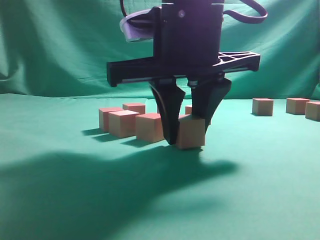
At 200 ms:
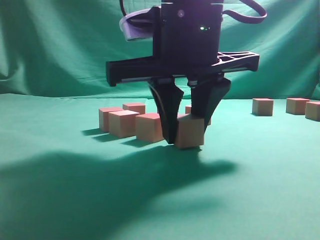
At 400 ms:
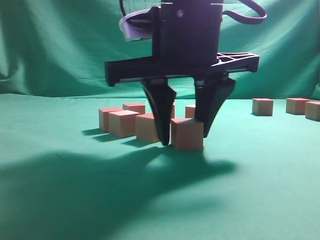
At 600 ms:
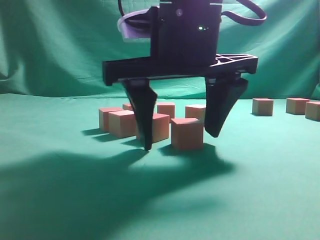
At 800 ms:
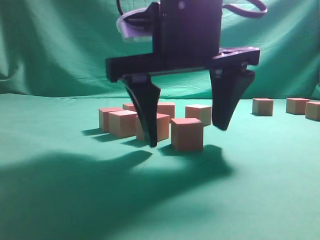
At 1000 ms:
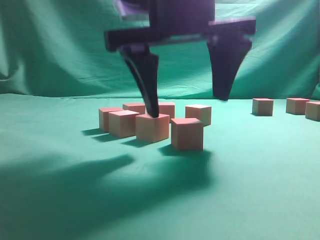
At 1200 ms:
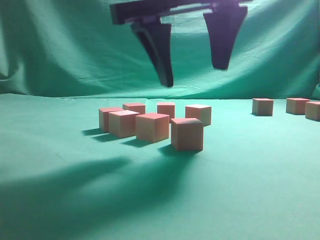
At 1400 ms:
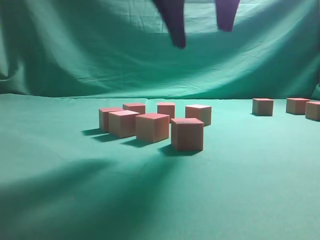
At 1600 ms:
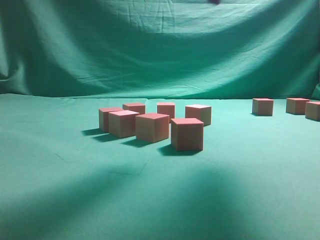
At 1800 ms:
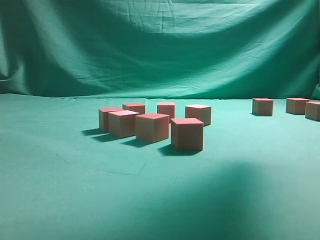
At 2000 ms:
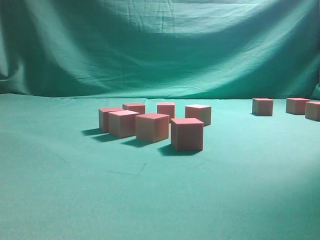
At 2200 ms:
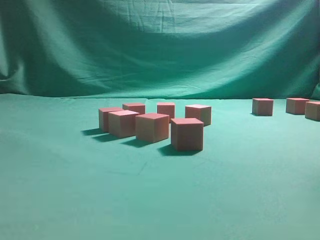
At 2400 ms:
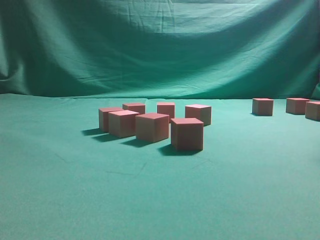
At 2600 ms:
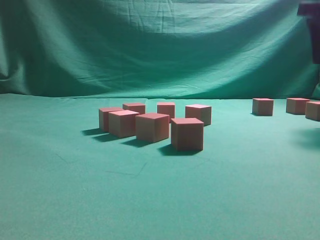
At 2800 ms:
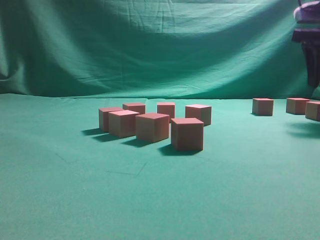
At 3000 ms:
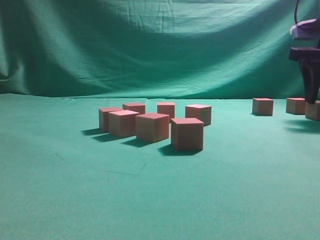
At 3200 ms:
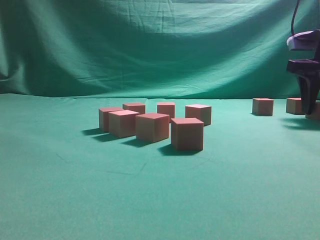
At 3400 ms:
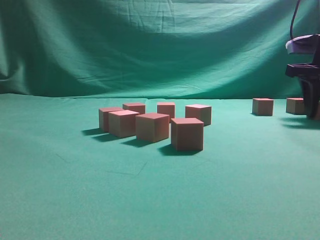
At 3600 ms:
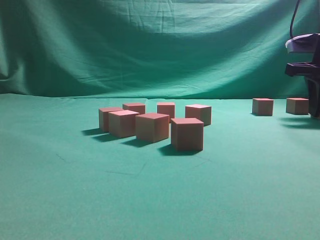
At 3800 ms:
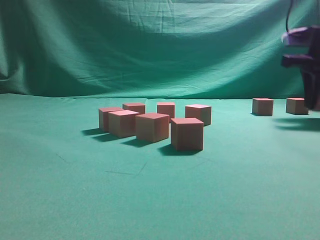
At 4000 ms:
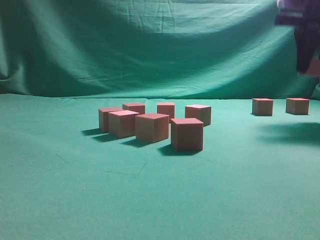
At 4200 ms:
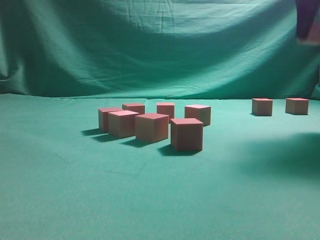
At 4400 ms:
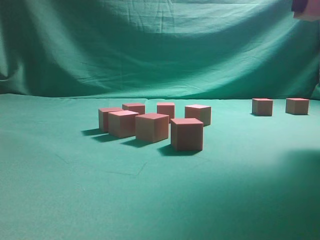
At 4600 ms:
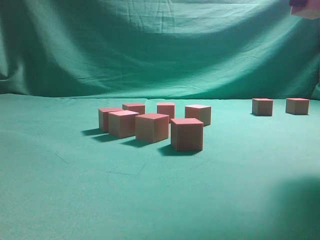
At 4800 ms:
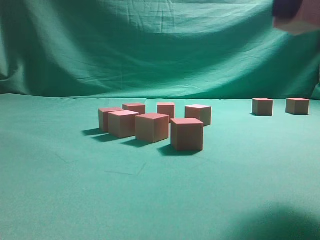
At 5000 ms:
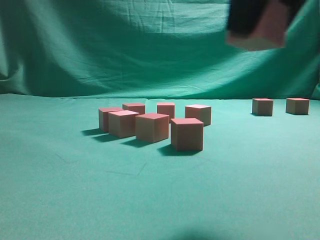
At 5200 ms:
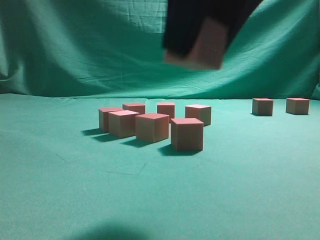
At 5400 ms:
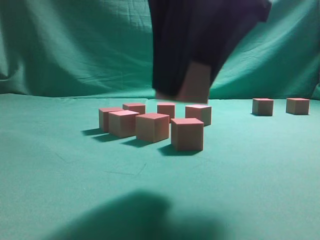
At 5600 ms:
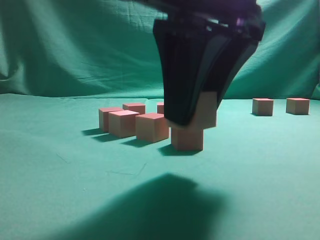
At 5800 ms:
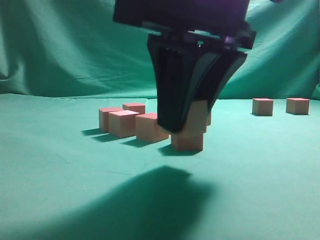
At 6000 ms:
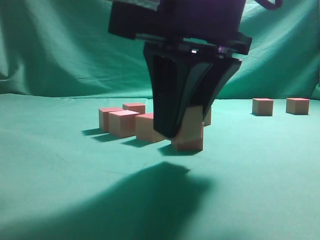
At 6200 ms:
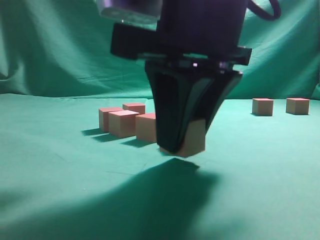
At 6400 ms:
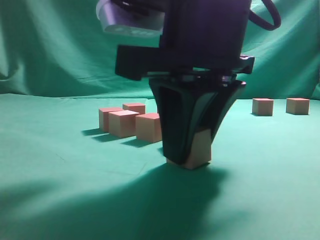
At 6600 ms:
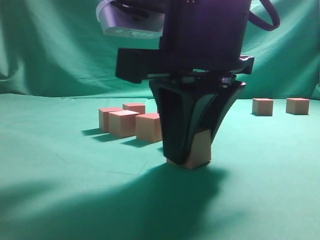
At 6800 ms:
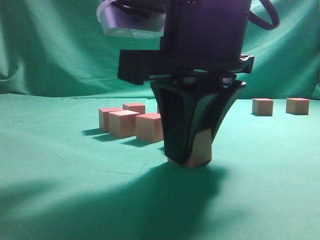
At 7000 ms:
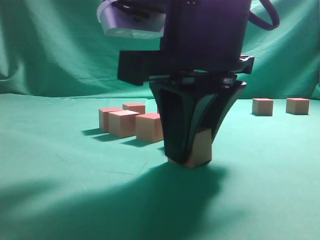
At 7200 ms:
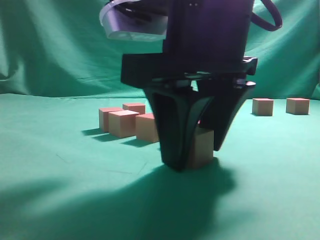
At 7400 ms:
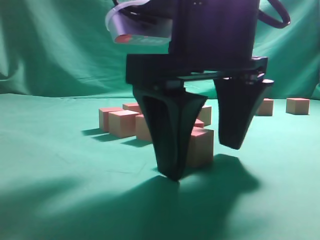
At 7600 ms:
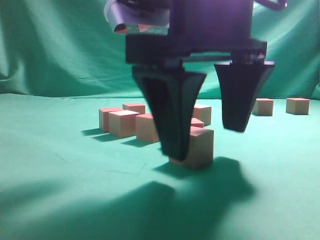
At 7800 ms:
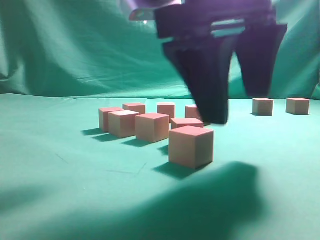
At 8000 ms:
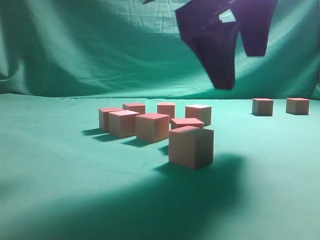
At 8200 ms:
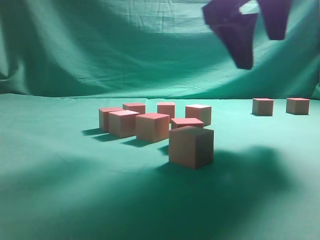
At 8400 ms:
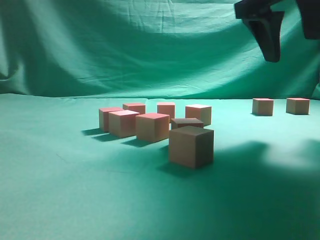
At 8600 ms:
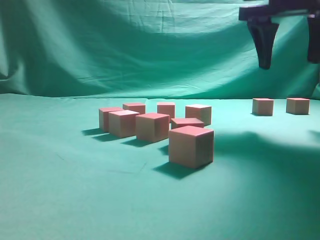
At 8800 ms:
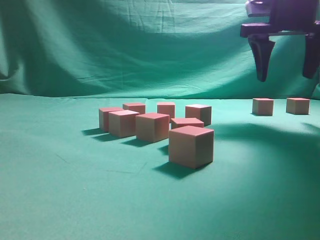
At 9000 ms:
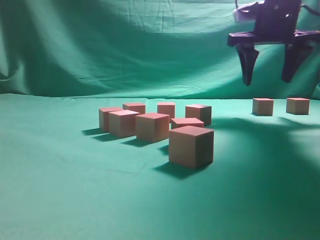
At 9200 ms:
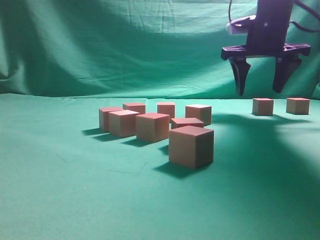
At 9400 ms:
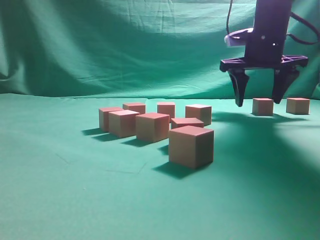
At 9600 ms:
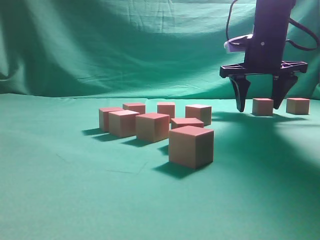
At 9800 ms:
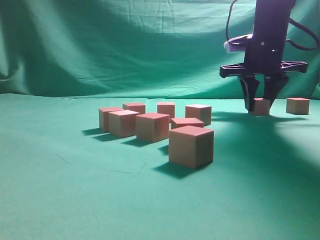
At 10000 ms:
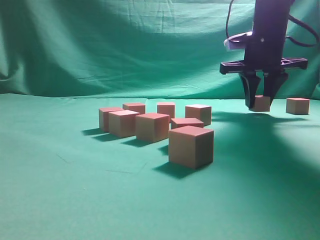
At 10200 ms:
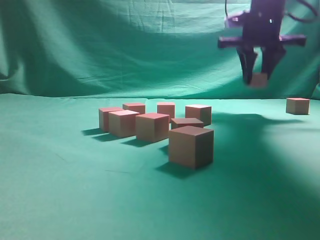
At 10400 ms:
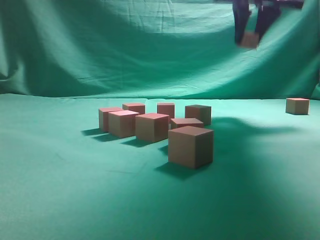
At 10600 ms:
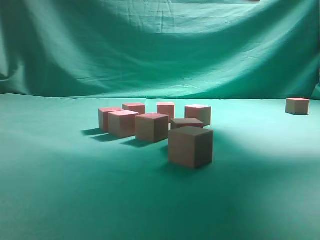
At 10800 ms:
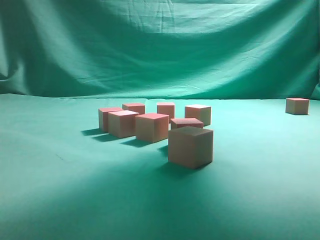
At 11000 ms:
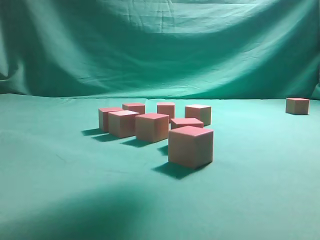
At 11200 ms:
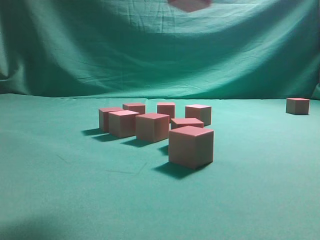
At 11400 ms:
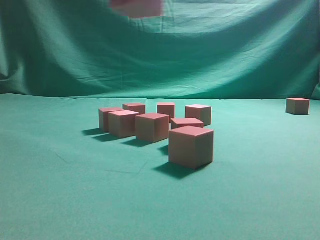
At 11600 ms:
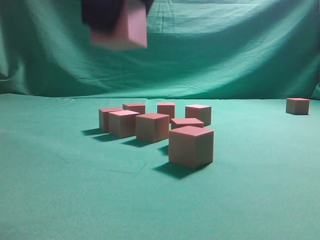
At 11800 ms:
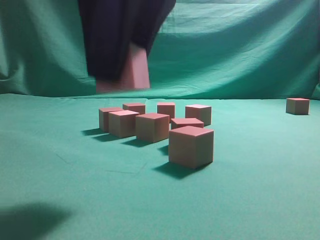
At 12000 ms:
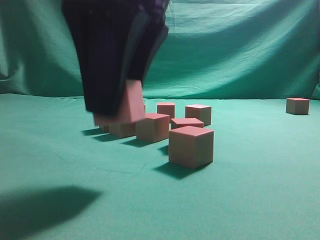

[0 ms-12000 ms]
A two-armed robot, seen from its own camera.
Task of the whole recording: pick up the multiple cubes in two columns one by one and place them in another position on the table.
Step, 1400 ms to 3800 ms: Pick up the block on the table.
Step, 4000 ms to 10000 ms: Place the block at the correct position to assemble the letter S.
0 ms to 1600 ms: The right gripper moves upward, about 15 cm, and opens up.
1600 ms to 3000 ms: The right gripper moves to the right, forward and downward, roughly 30 cm.
3000 ms to 4400 ms: The right gripper travels upward, backward and to the left by roughly 15 cm, and closes its fingers.
4400 ms to 6000 ms: The right gripper shifts some 25 cm to the left, downward and backward.
6000 ms to 7600 ms: The right gripper opens up.
7600 ms to 9000 ms: The right gripper goes approximately 25 cm forward and to the right.
9000 ms to 10400 ms: The right gripper heads upward, covering roughly 5 cm, and closes its fingers.
10400 ms to 12000 ms: The right gripper travels backward and to the left by about 35 cm.

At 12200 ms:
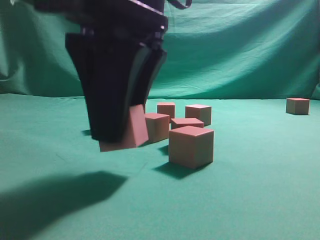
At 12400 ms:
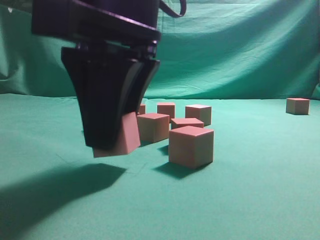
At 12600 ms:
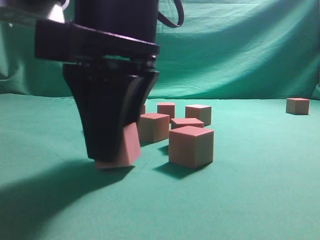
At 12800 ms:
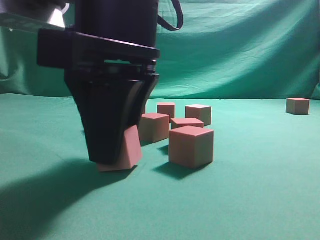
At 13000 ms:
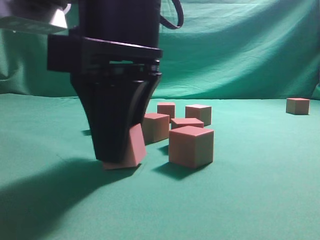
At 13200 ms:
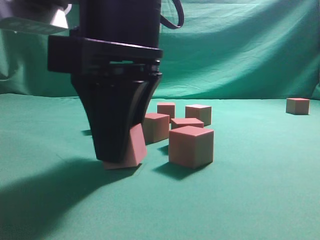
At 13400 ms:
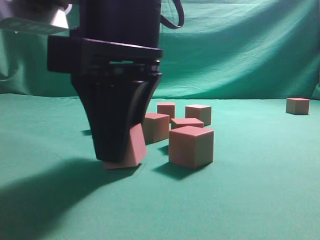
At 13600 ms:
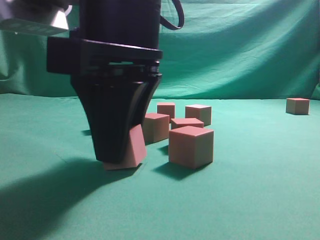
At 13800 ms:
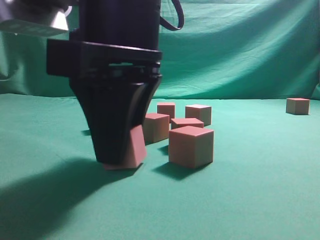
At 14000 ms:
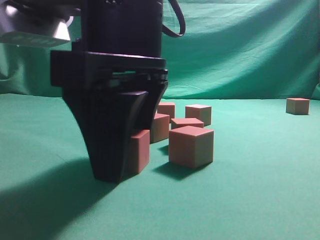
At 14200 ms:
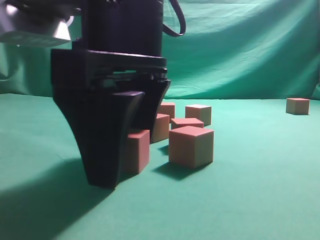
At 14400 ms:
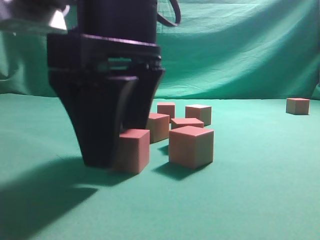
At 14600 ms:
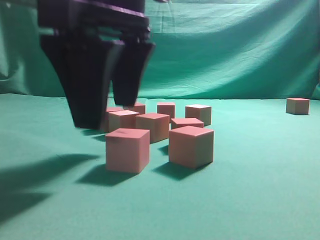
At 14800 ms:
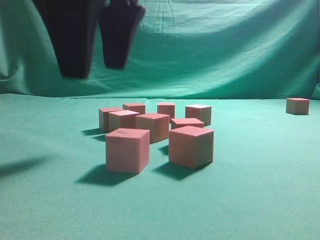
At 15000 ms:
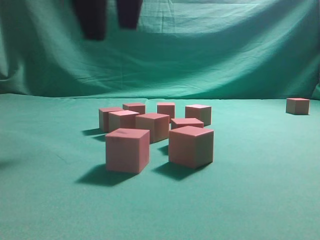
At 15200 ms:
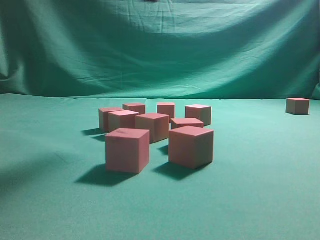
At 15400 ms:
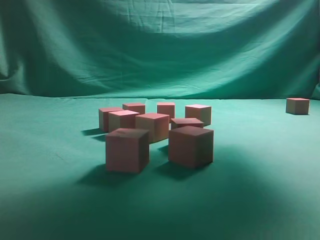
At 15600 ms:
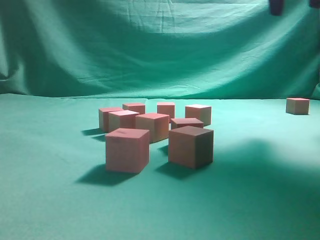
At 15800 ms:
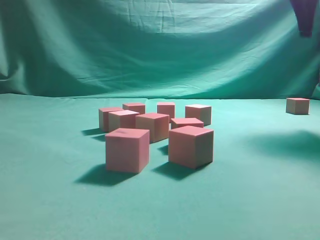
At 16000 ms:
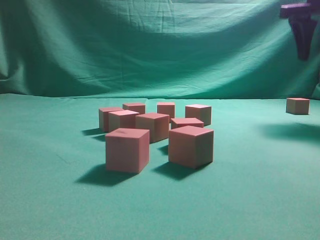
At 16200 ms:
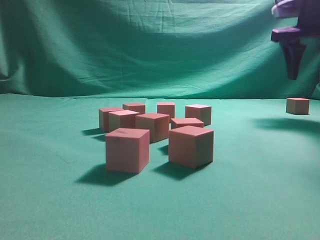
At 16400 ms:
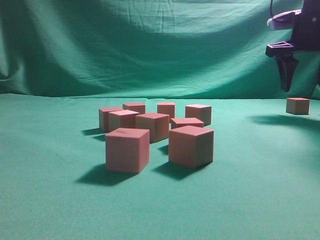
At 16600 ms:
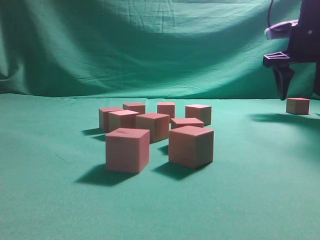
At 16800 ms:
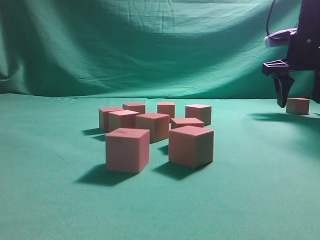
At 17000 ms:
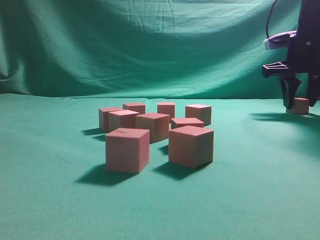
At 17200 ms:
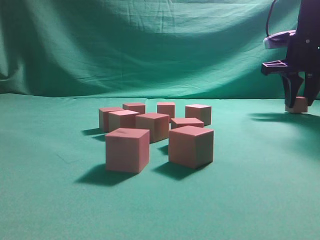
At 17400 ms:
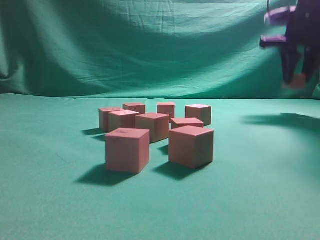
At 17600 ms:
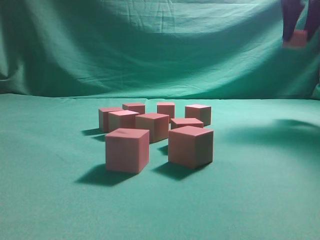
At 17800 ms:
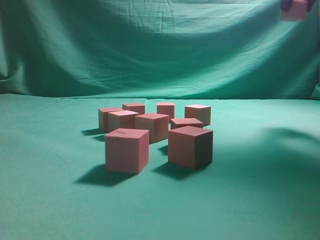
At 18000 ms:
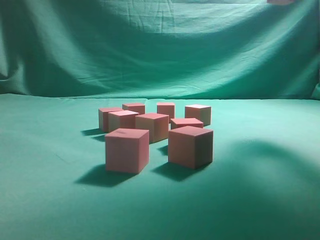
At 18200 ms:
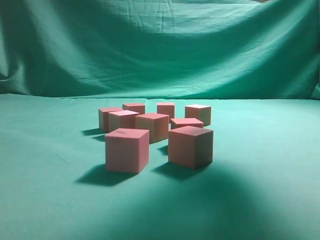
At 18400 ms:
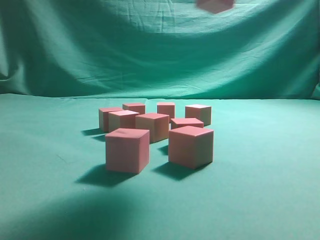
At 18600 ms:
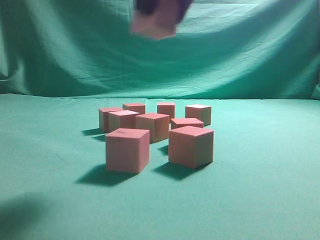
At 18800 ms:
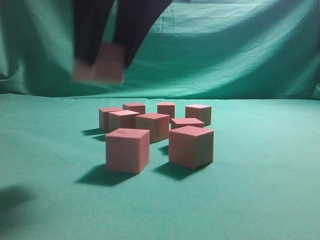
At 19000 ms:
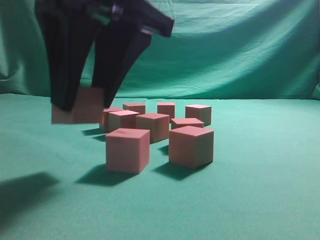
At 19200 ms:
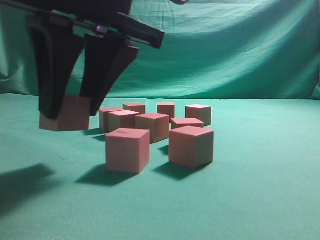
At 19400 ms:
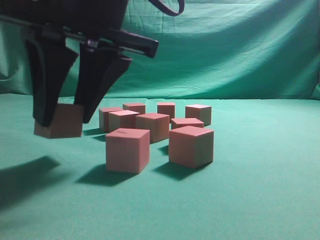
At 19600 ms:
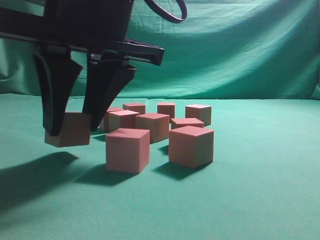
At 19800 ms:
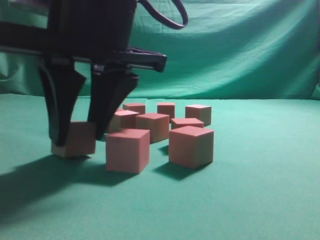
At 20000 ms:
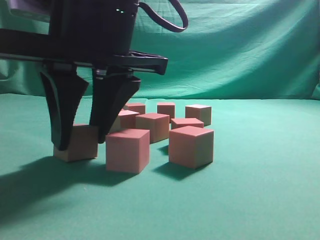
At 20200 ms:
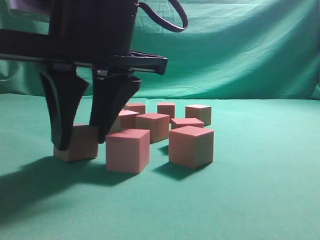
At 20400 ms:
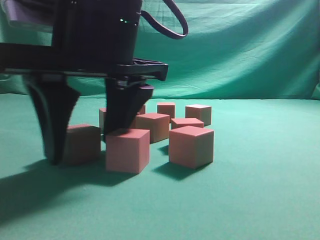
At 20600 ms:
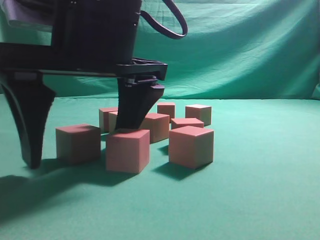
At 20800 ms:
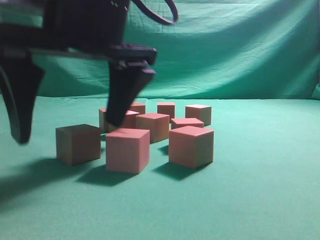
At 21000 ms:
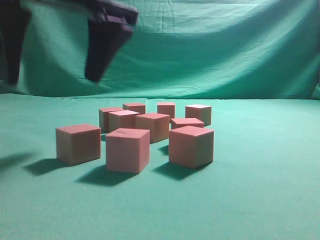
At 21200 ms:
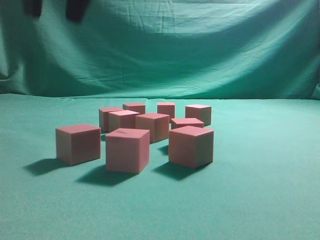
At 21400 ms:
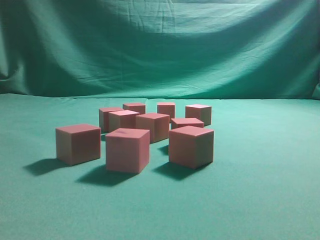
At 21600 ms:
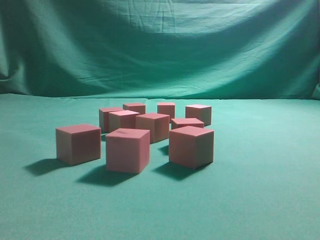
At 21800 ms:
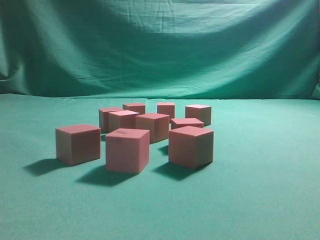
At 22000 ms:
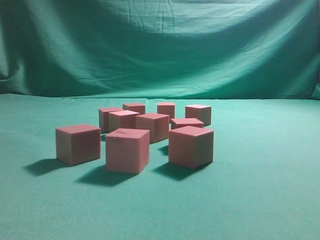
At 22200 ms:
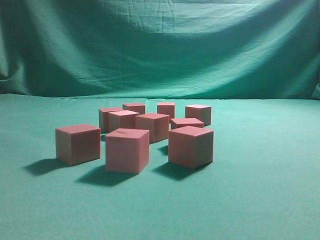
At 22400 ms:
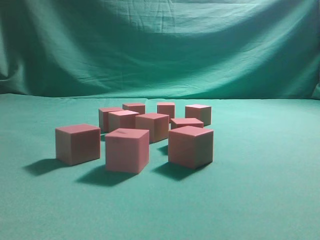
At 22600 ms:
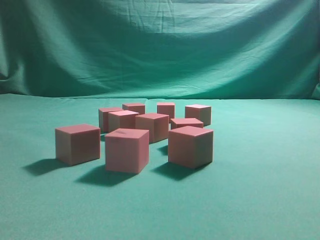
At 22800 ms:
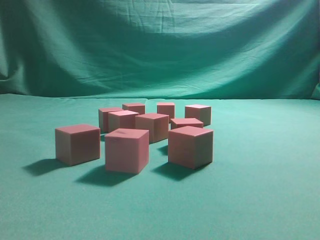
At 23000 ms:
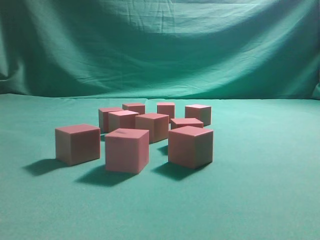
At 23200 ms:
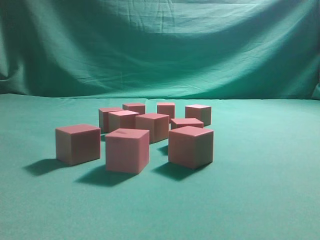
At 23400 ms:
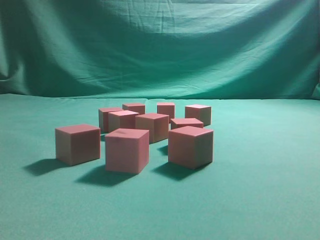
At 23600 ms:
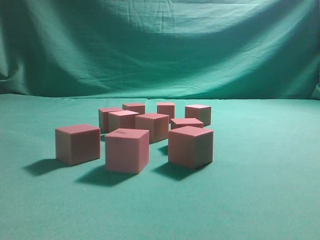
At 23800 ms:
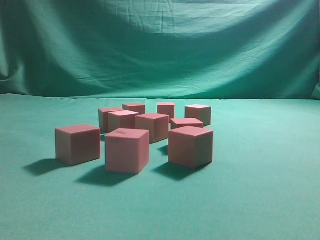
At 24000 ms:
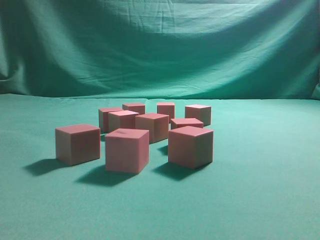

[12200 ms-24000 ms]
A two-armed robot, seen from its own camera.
Task of the whole recording: pick up the multiple cubes in two columns one by one and place them in another position on the table.
Step, 12200 ms to 14800 ms: Pick up the block on the table.
Step, 15000 ms to 17200 ms: Place the block at the correct position to assemble the letter S.
Step, 17600 ms to 21000 ms: Pick up the block on the table.
12200 ms to 13600 ms: The grippers move only a little.
13600 ms to 15200 ms: The right gripper shifts some 15 cm upward and forward, and opens.
15200 ms to 16600 ms: The right gripper moves to the right, forward and downward, roughly 35 cm.
16600 ms to 18200 ms: The right gripper travels upward, backward and to the left by approximately 25 cm, and closes its fingers.
18200 ms to 19600 ms: The right gripper shifts about 30 cm to the left, downward and backward.
19600 ms to 21000 ms: The right gripper opens up.
21000 ms to 22600 ms: The right gripper heads upward, to the right and backward, covering about 35 cm, and closes up.
